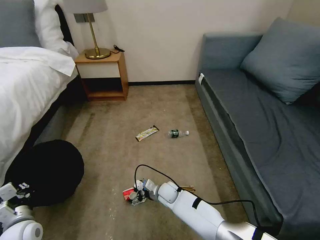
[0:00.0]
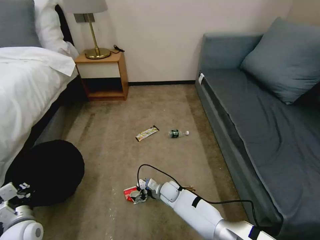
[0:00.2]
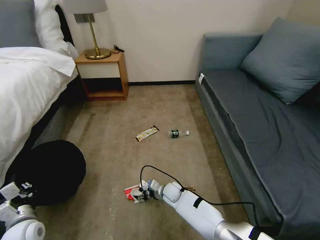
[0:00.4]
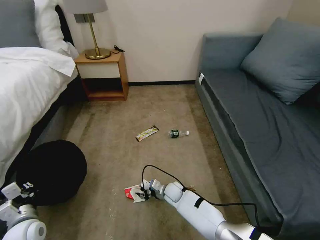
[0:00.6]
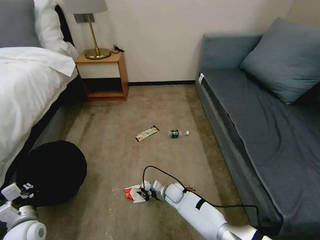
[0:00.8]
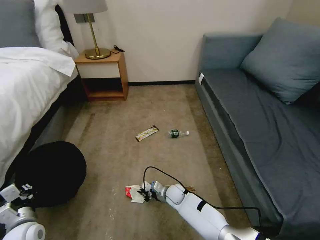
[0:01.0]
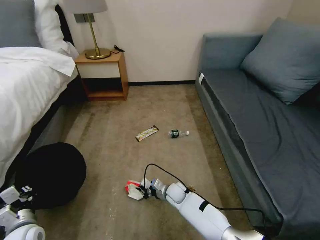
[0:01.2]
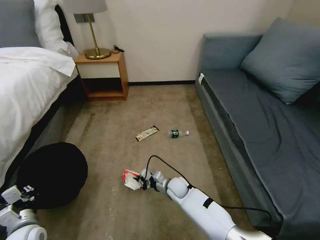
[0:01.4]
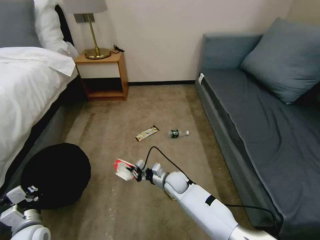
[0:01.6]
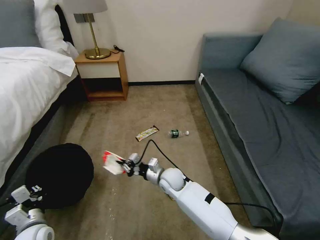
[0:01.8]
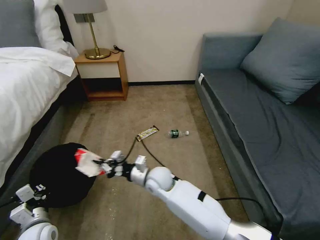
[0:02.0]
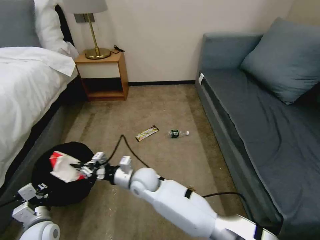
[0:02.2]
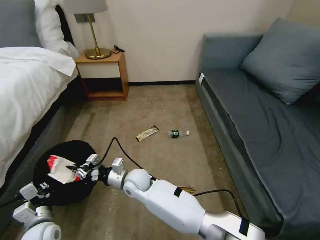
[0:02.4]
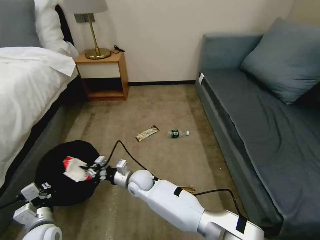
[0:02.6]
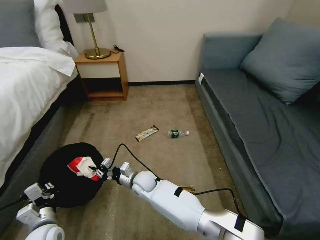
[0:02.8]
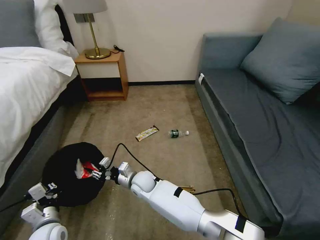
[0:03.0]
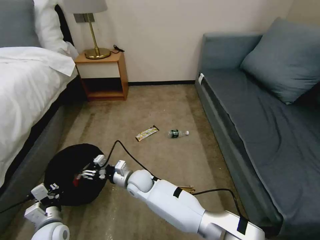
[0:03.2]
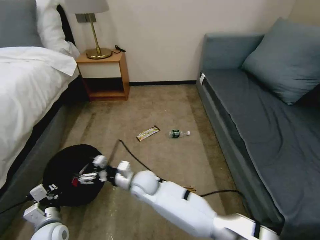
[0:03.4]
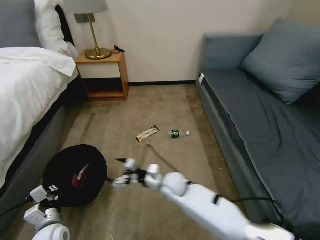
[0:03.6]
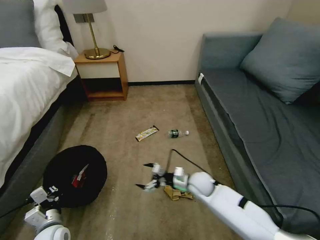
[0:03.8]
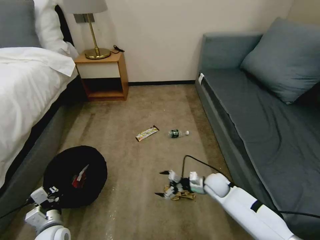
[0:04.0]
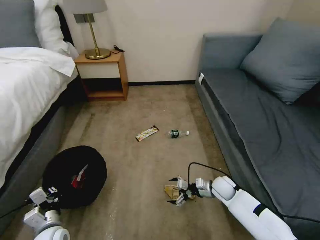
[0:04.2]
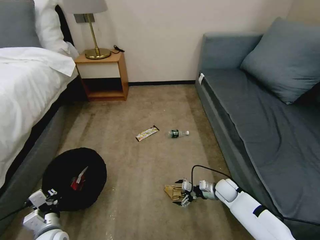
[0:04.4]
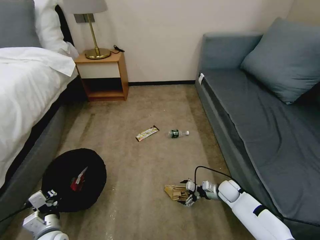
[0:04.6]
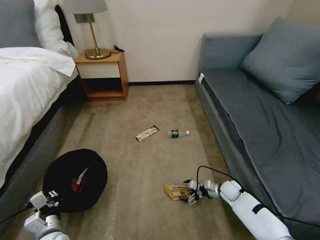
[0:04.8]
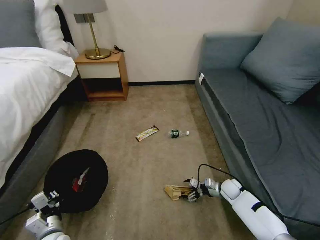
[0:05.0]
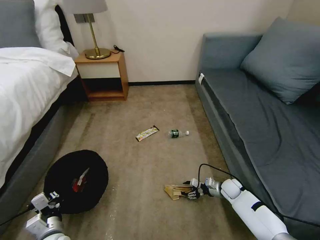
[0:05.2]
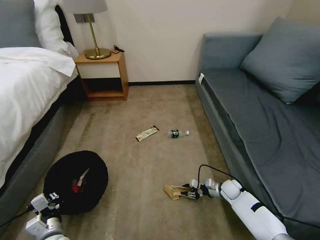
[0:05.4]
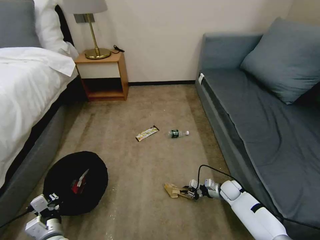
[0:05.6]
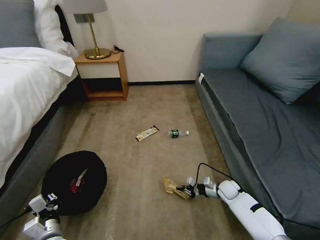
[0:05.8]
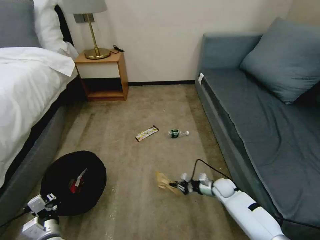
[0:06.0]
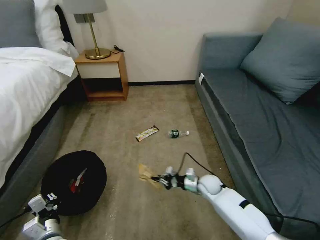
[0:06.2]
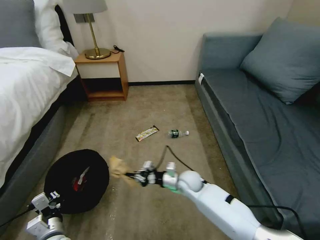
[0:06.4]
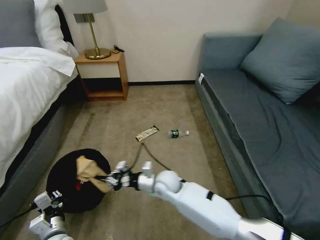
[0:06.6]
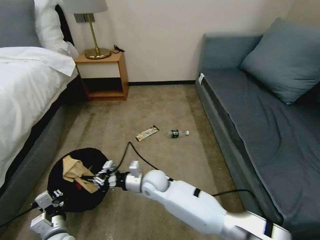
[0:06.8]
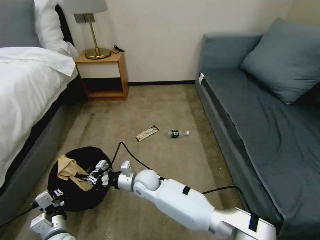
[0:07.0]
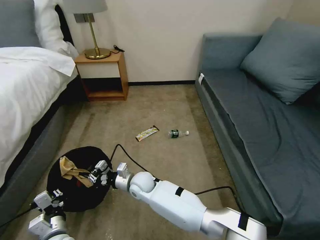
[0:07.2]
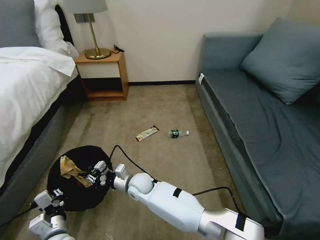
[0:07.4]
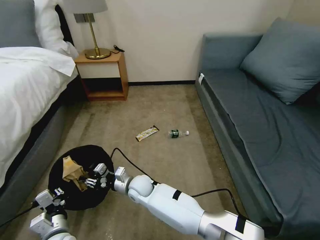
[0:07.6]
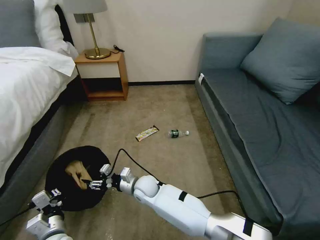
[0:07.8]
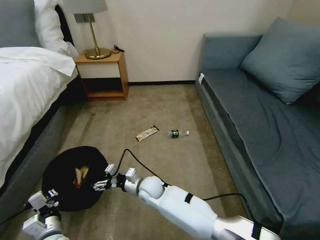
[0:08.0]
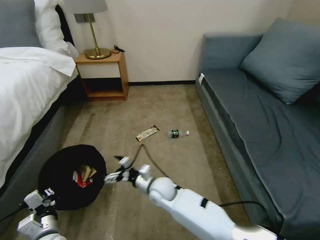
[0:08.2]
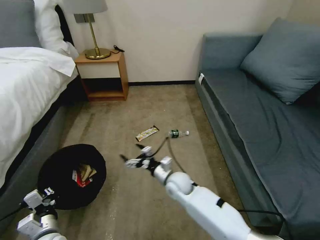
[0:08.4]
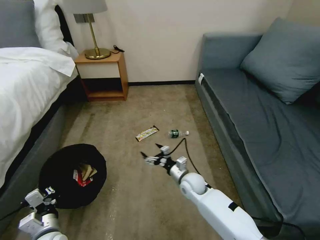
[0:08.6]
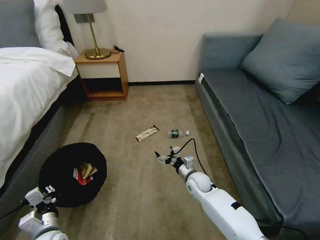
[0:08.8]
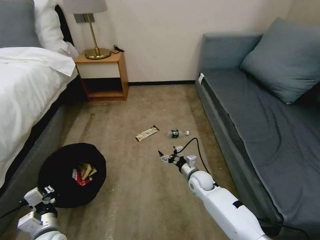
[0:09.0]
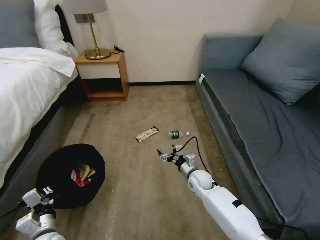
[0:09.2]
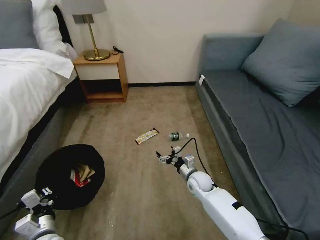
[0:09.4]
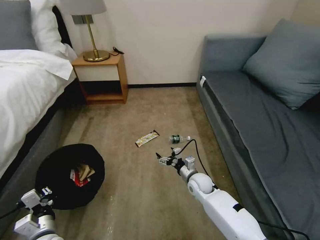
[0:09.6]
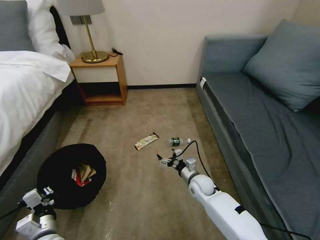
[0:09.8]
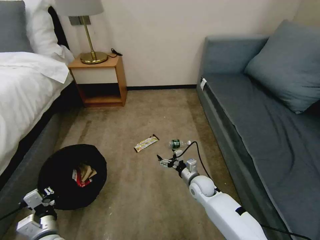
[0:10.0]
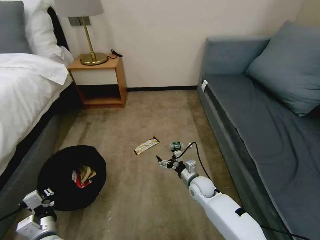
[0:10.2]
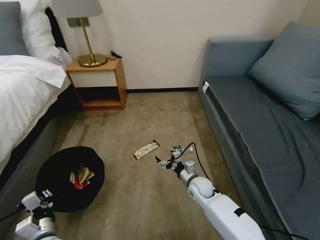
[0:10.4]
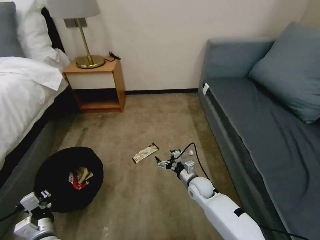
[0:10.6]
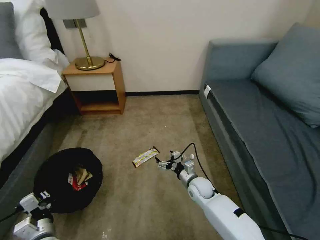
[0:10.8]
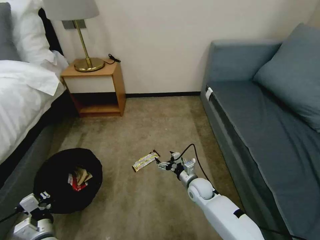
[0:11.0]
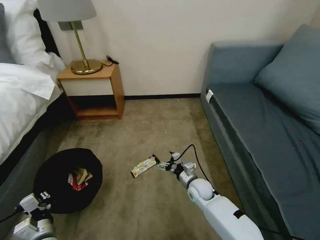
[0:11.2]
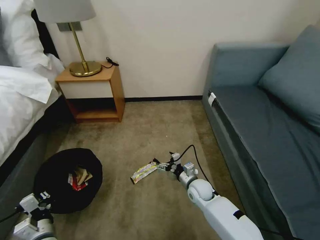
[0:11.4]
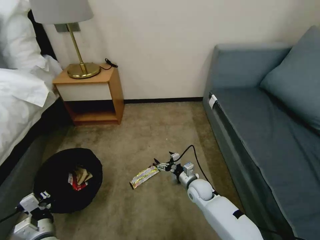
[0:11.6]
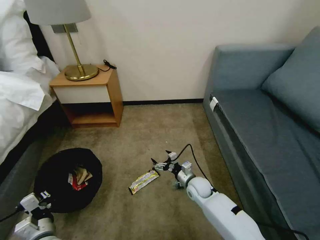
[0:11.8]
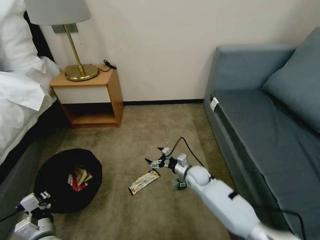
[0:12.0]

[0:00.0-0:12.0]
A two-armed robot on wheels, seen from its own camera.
Task of the whole recording: Pick up the trash bin, then pick up the garbage on the floor and place it into the trash bin.
0:00.0 to 0:01.6: The right gripper goes some 5 cm upward, and closes its fingers.
0:01.6 to 0:03.0: The right gripper shifts approximately 15 cm to the left. Meanwhile the left gripper is displaced to the right by roughly 5 cm.
0:03.0 to 0:04.4: The right gripper is displaced to the right by approximately 35 cm, and opens up.
0:04.4 to 0:06.0: The right gripper closes.
0:06.0 to 0:07.6: The right gripper shifts about 35 cm to the left, and opens up.
0:07.6 to 0:09.0: The right gripper shifts roughly 25 cm to the right, and opens up.
0:10.4 to 0:12.0: The right gripper is displaced forward by about 5 cm.

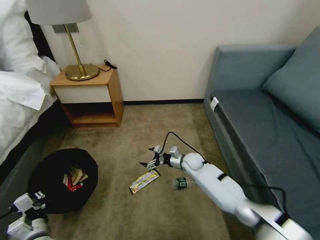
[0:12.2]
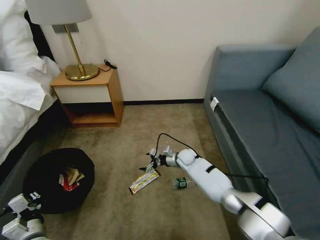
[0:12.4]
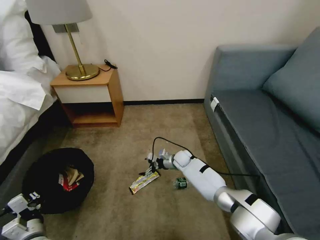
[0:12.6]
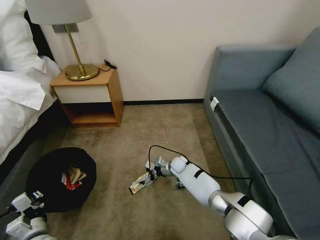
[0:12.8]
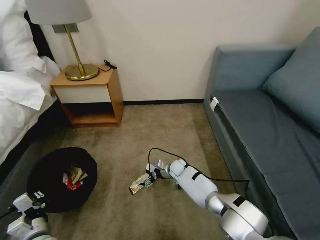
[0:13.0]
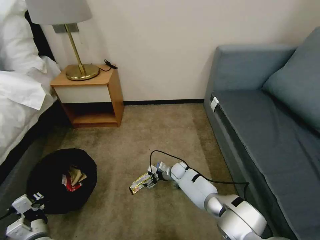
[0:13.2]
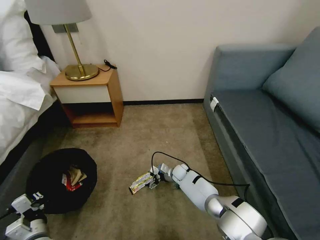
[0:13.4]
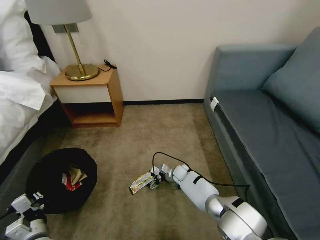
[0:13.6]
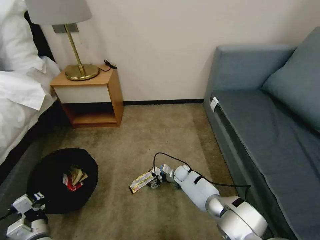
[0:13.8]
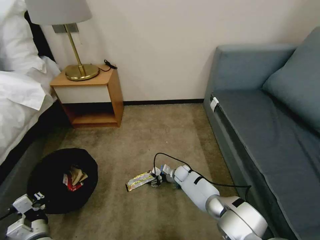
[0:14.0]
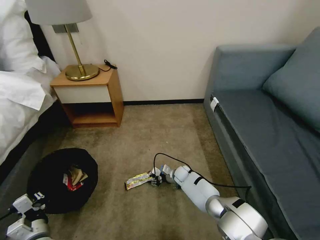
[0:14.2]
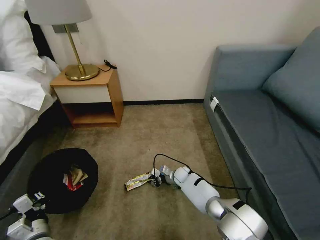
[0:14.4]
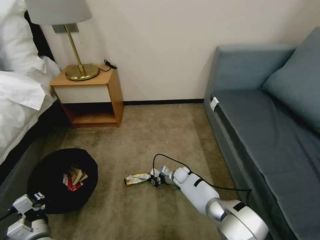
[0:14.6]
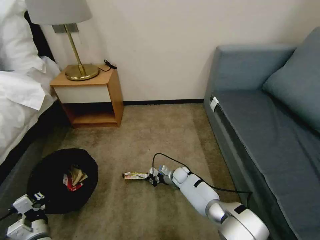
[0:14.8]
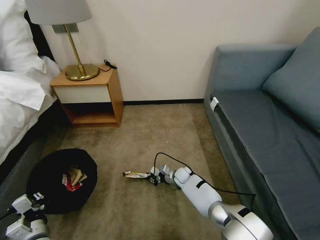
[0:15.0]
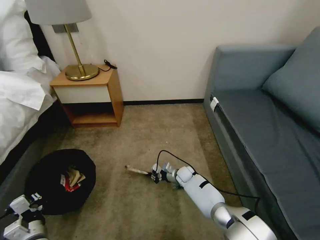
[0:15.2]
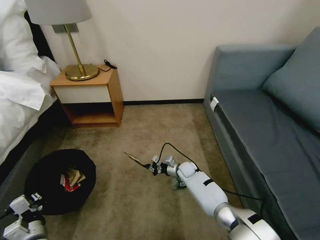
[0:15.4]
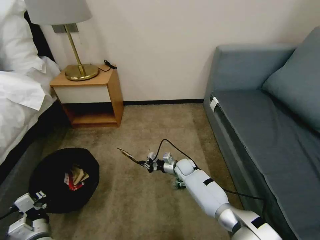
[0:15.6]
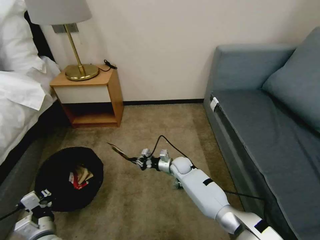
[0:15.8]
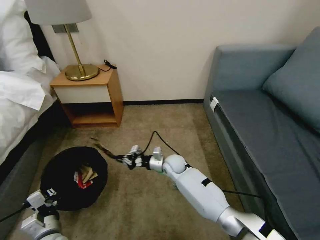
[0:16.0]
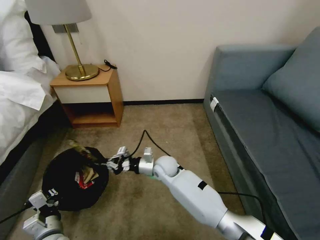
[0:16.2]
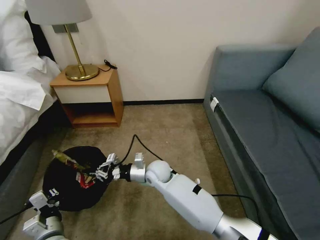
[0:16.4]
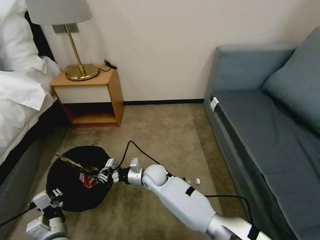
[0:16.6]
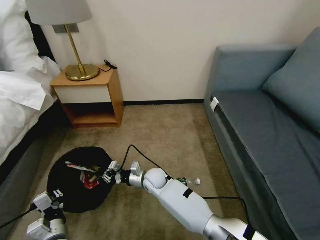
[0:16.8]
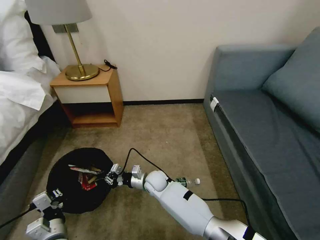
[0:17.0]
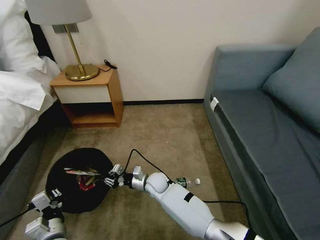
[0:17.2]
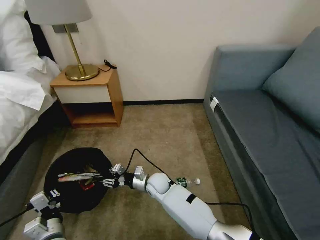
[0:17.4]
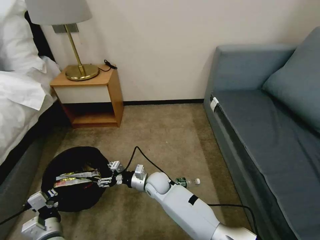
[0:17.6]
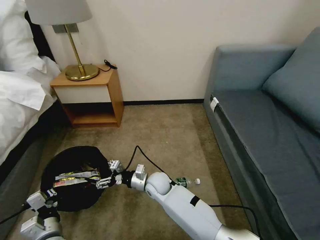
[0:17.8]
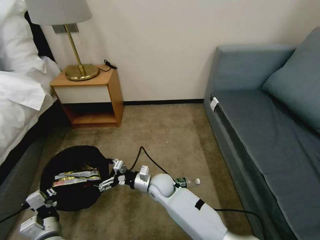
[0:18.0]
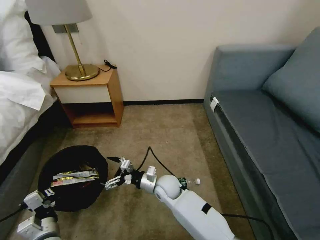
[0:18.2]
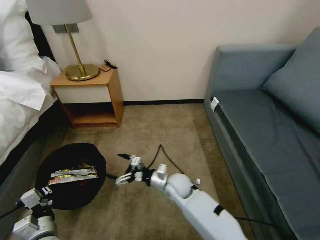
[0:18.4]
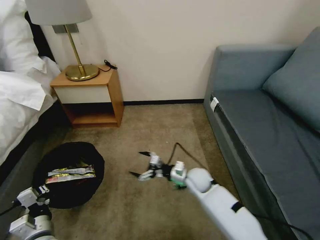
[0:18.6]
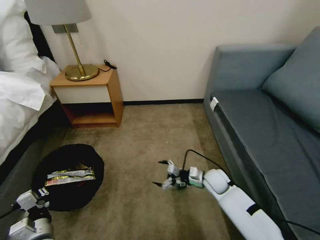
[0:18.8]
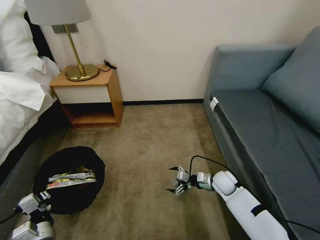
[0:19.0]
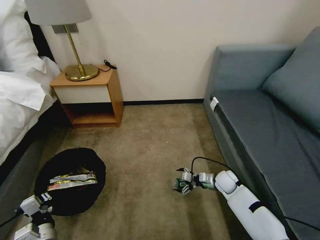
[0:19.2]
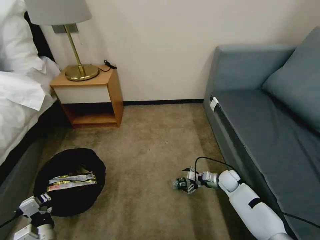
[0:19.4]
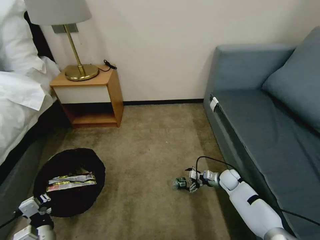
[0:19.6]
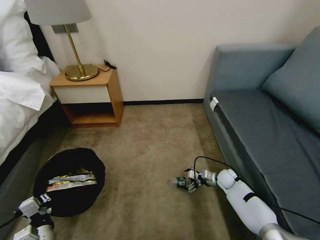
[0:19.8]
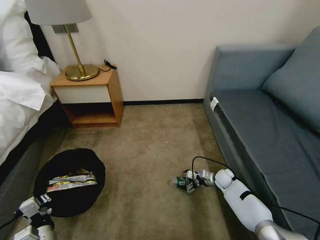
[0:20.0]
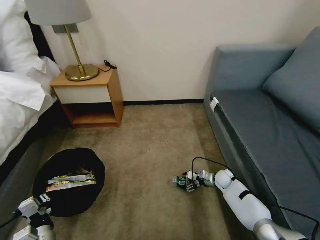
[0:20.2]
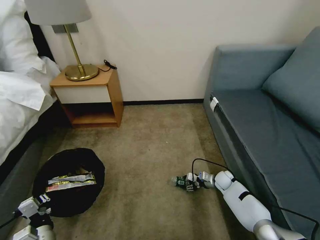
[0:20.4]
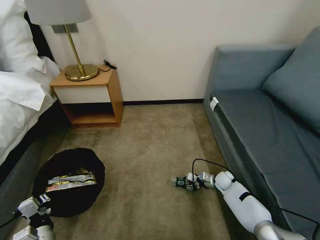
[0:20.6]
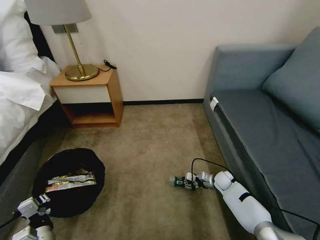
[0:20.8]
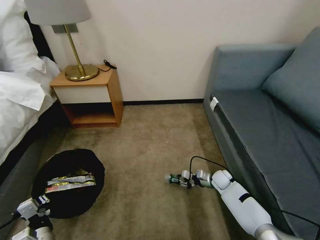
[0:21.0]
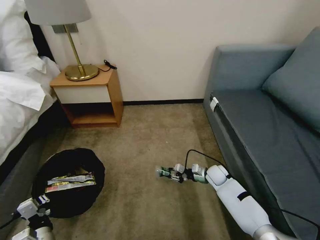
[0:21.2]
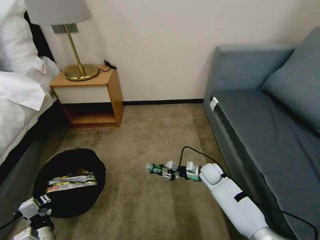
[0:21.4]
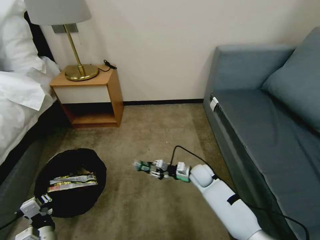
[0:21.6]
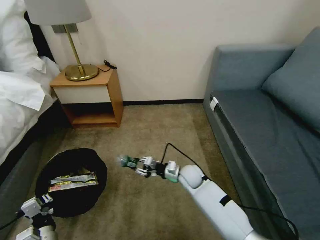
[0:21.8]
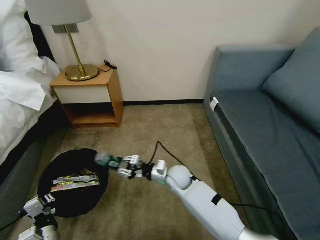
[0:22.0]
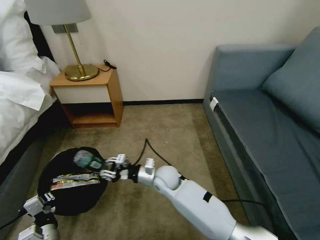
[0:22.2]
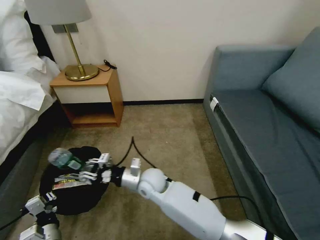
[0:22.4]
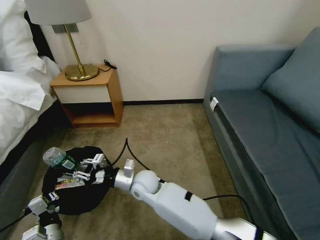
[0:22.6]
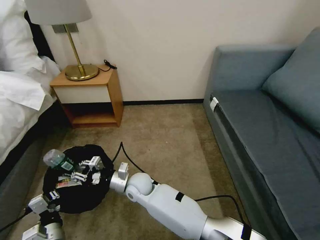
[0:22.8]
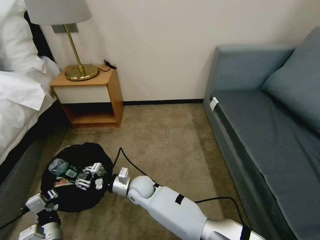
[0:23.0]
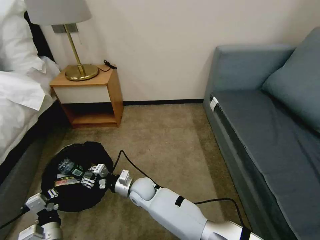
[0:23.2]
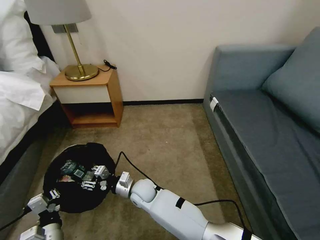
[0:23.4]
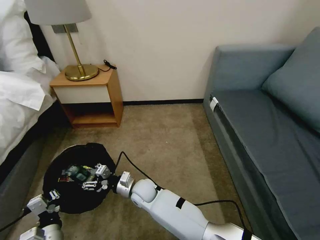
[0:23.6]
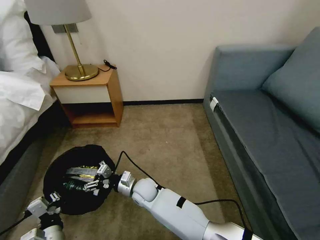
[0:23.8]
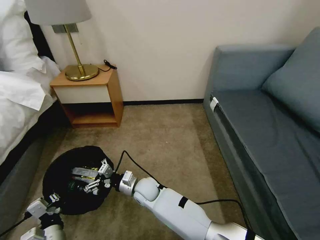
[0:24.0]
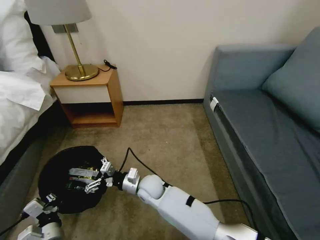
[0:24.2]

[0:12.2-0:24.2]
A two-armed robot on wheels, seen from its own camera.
Task of the whole recording: Pick up the trash bin, then pick up the garbage on the floor and place it into the trash bin.
0:12.2 to 0:13.8: The right gripper travels downward by roughly 10 cm.
0:13.8 to 0:15.2: The right gripper closes its fingers.
0:15.2 to 0:16.6: The left gripper goes some 5 cm to the right. Meanwhile the right gripper travels to the left, upward and backward by approximately 20 cm.
0:16.6 to 0:18.2: The right gripper changes place by roughly 5 cm, and opens.
0:18.2 to 0:19.8: The right gripper heads to the right, covering some 30 cm.
0:19.8 to 0:21.2: The right gripper is displaced to the left by about 5 cm, and closes its fingers.
0:21.2 to 0:22.6: The right gripper travels to the left by roughly 35 cm.
0:22.6 to 0:24.2: The right gripper opens its fingers.
